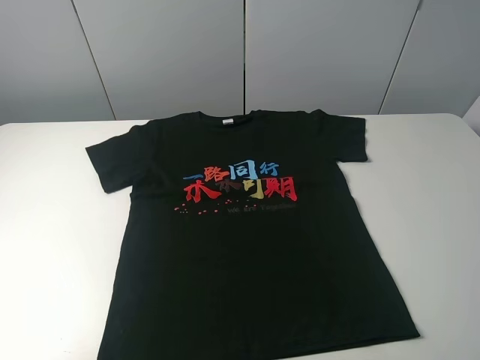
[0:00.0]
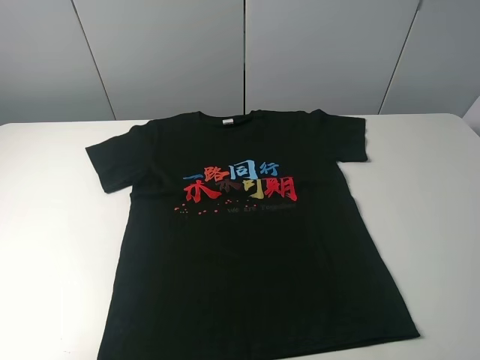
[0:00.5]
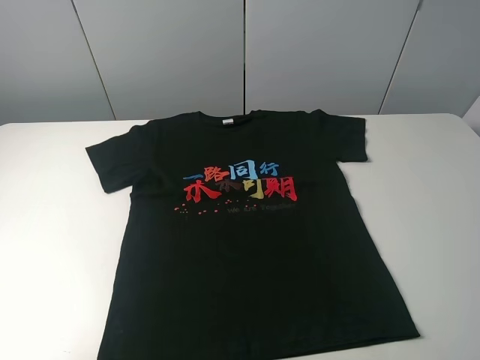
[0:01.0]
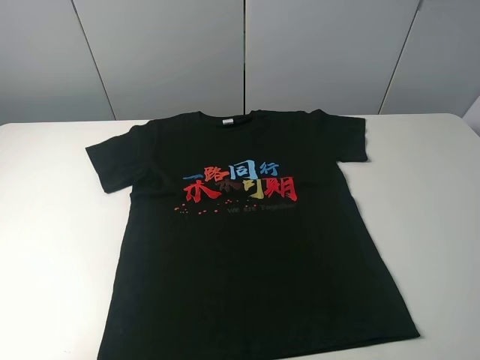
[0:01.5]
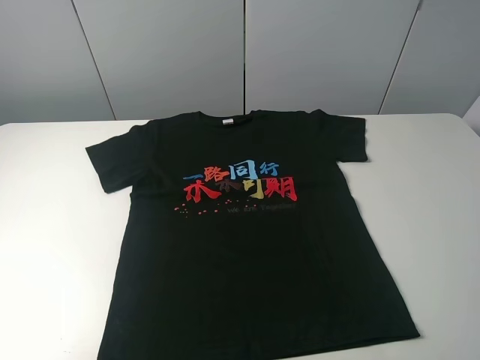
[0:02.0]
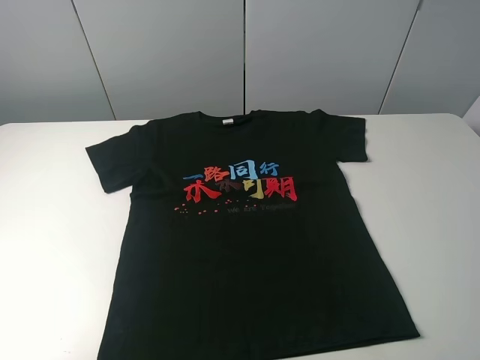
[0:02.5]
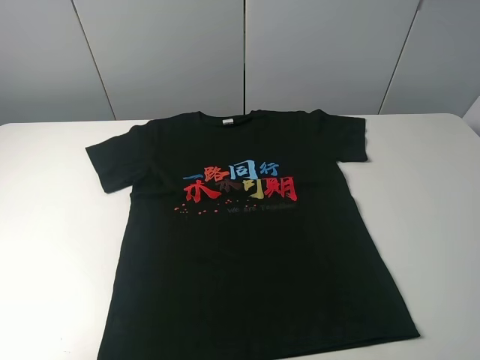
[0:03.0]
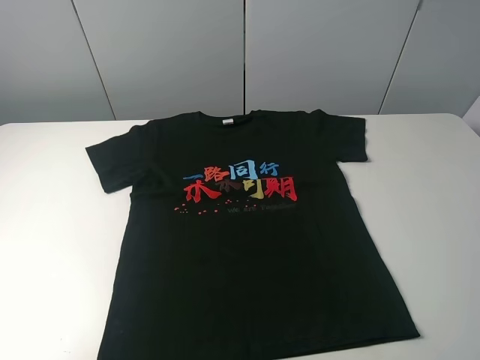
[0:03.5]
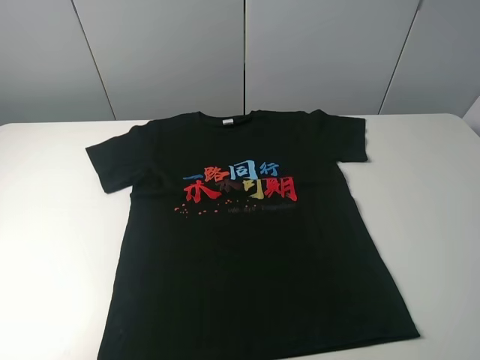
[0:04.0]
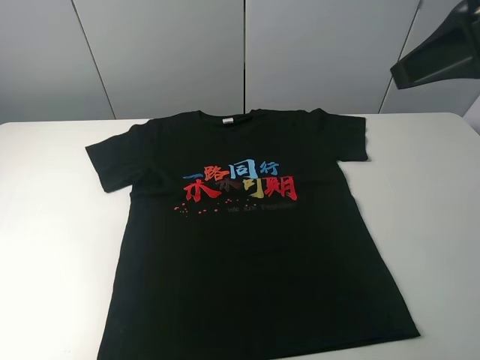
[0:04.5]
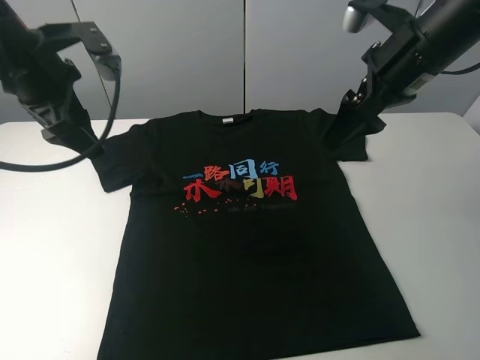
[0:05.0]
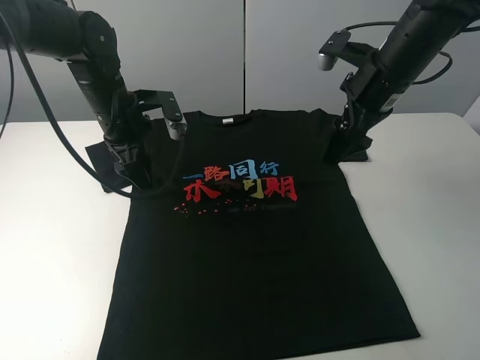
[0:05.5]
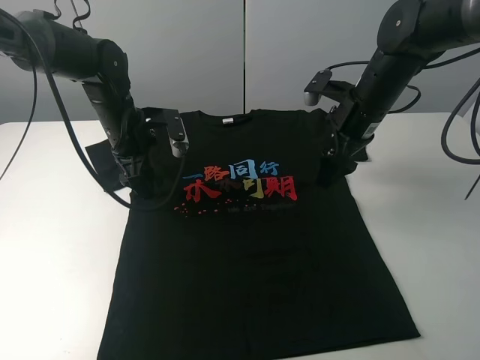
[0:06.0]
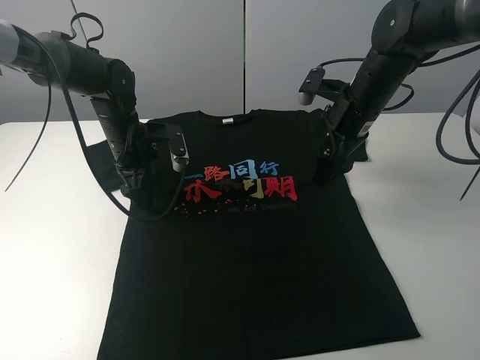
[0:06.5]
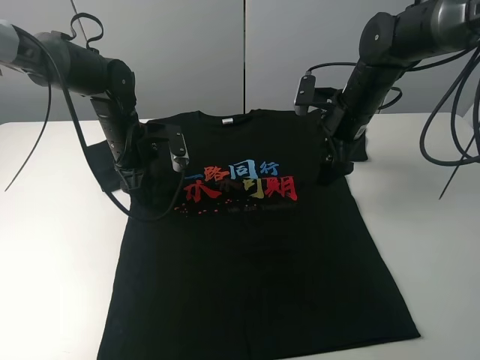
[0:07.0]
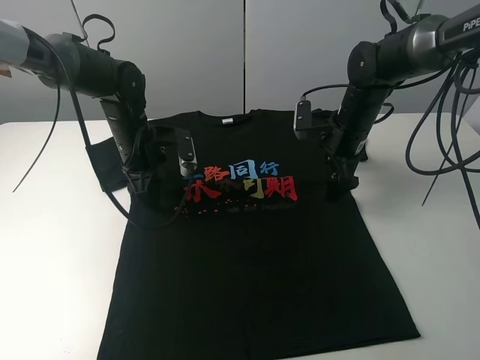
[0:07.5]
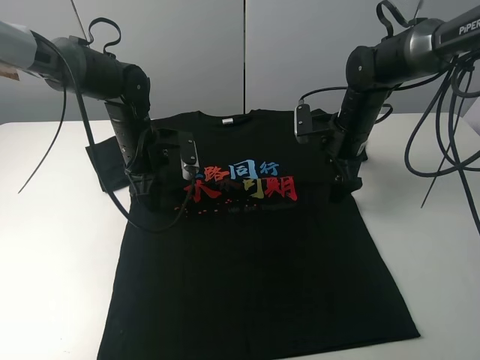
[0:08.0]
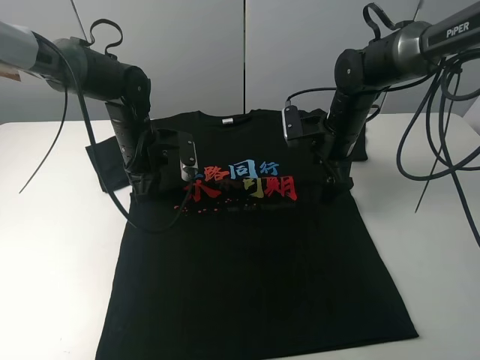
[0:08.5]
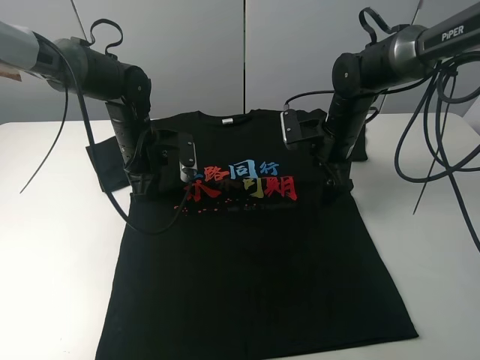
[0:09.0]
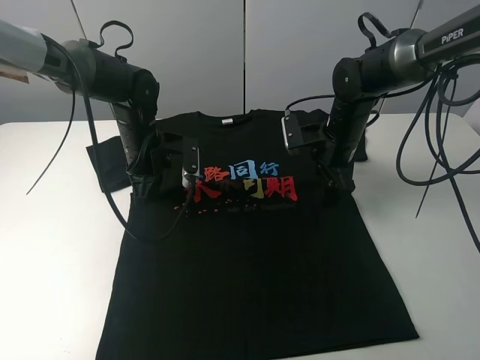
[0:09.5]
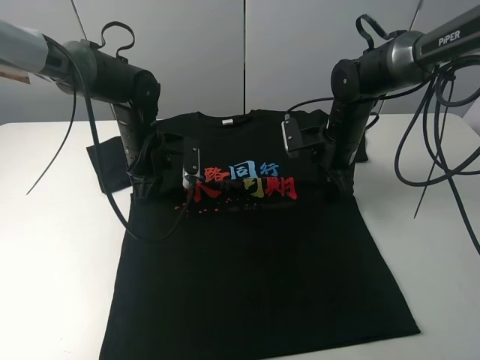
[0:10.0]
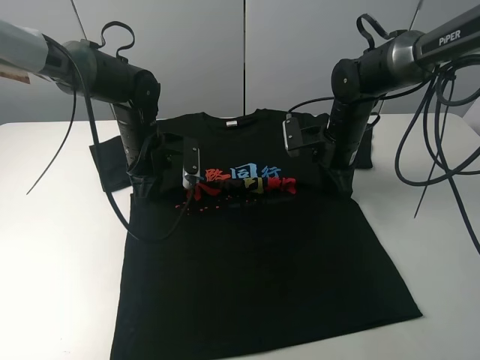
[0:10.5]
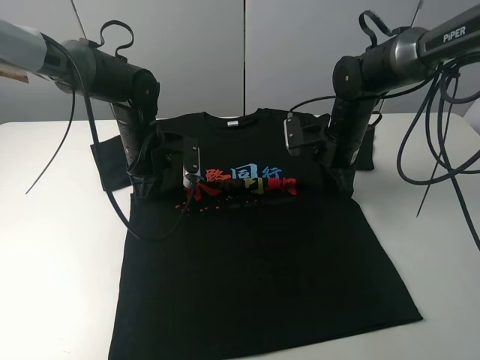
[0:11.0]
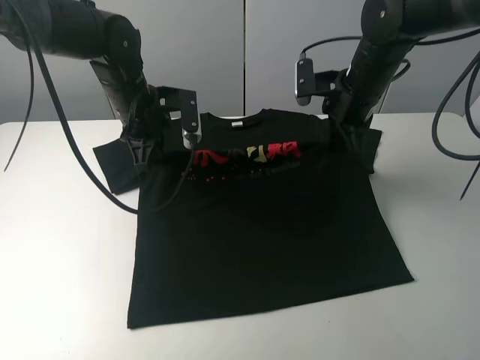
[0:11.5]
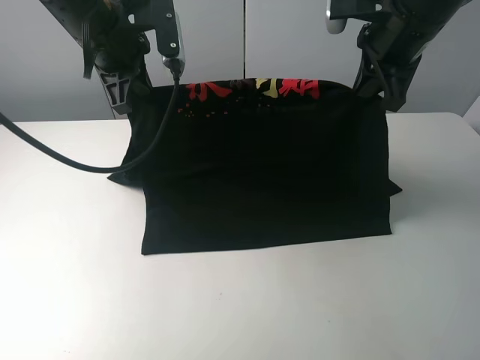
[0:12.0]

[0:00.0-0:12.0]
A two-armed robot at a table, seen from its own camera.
Task of the whole recording: fold the clothes on the table.
Step, 0:00.0 to 0:09.5: Lift the black T-shirt with the left gripper.
0:00.0 to 0:02.0: Both grippers stay put.
0:04.0 to 0:06.0: The right gripper moves forward and downward, some 35 cm. The left gripper goes roughly 40 cm forward, downward and to the right.
0:06.0 to 0:08.0: The right gripper is displaced downward by some 5 cm.
0:08.0 to 0:10.0: The left gripper closes its fingers; the right gripper closes its fingers.
0:10.0 to 0:12.0: Both grippers move upward, approximately 20 cm. The right gripper closes up.

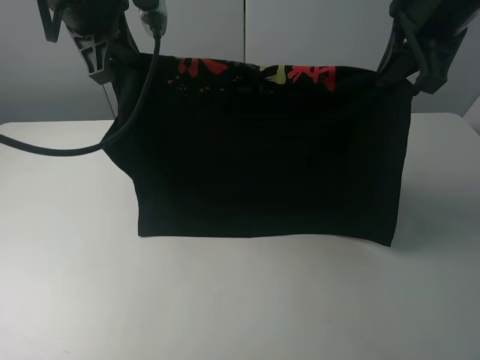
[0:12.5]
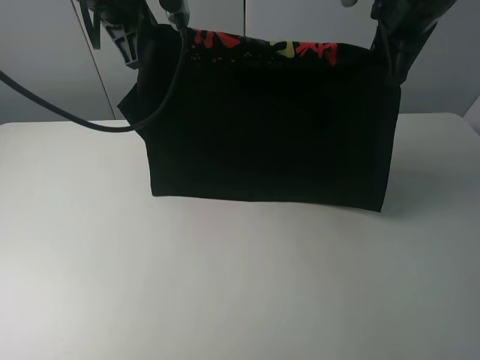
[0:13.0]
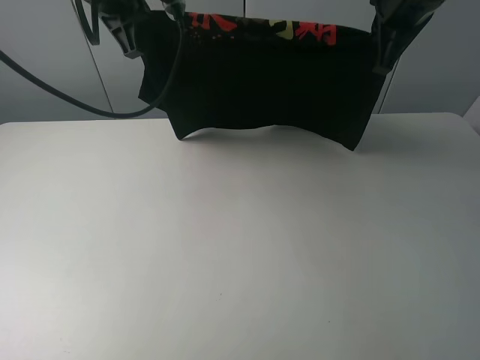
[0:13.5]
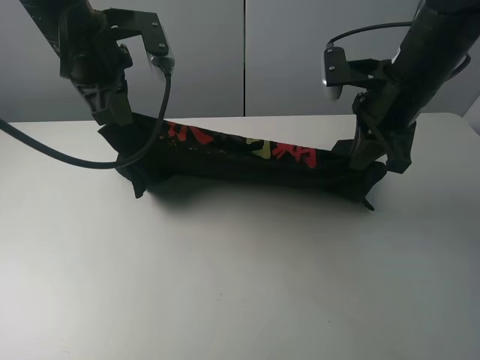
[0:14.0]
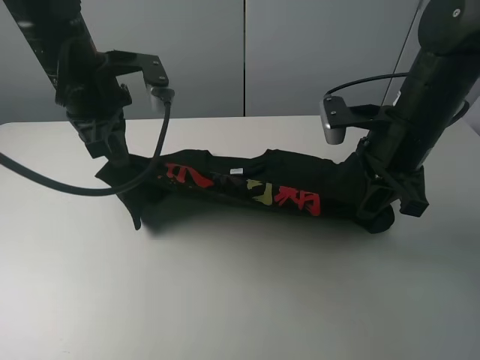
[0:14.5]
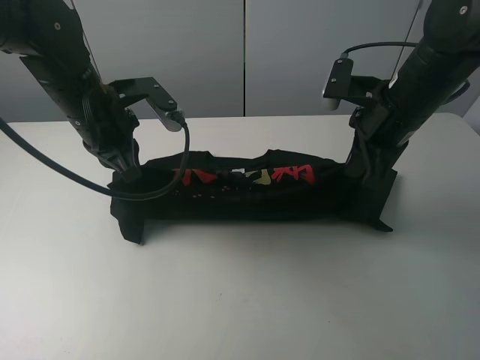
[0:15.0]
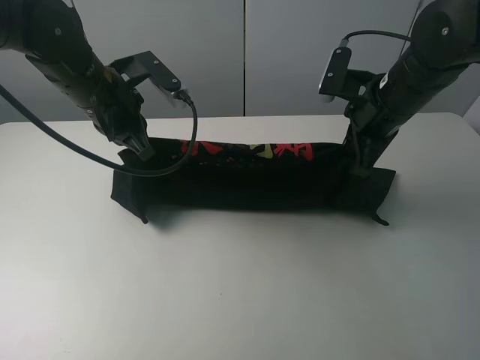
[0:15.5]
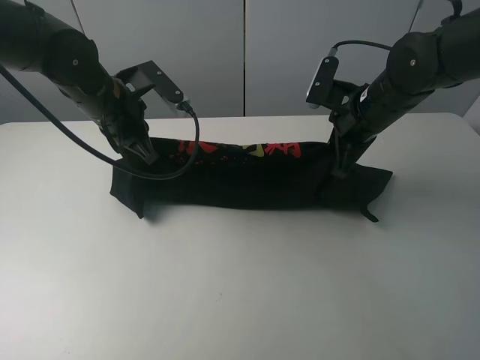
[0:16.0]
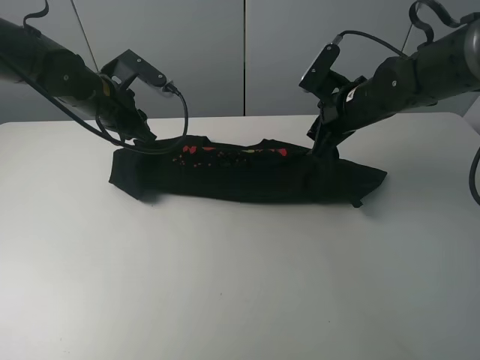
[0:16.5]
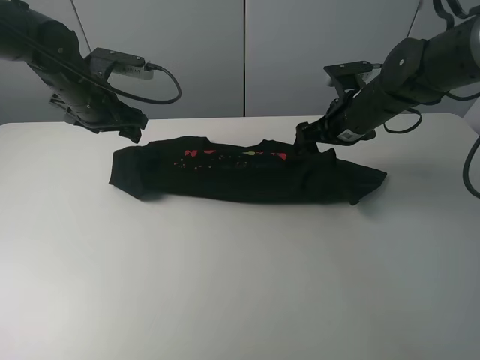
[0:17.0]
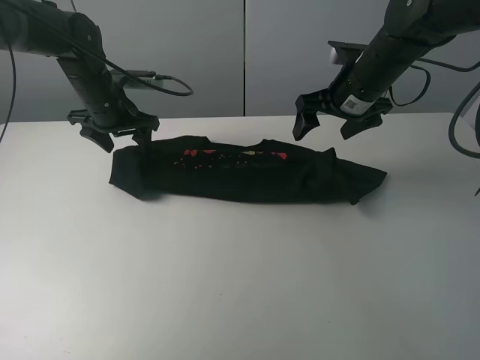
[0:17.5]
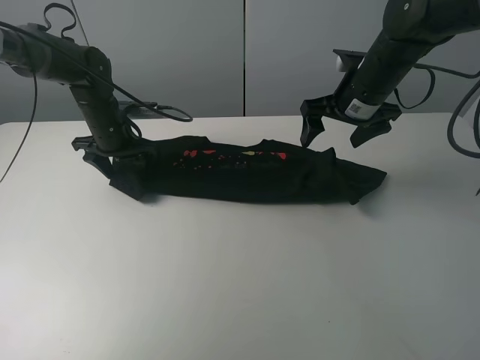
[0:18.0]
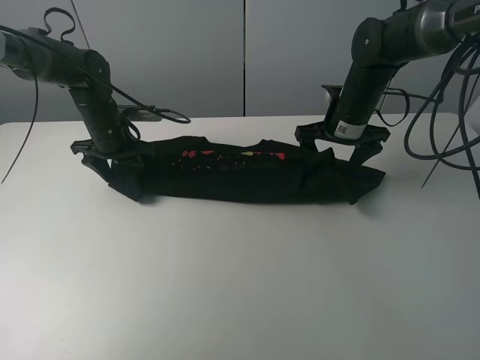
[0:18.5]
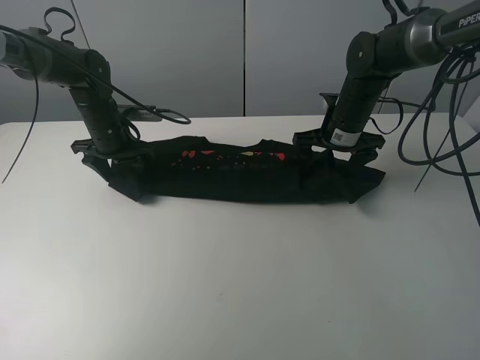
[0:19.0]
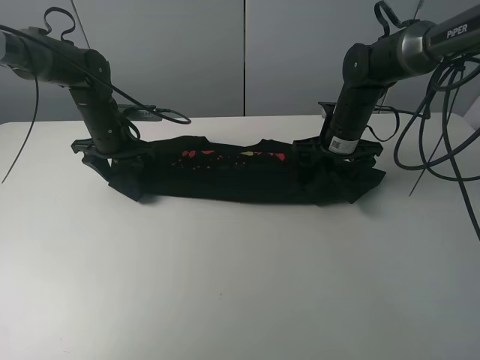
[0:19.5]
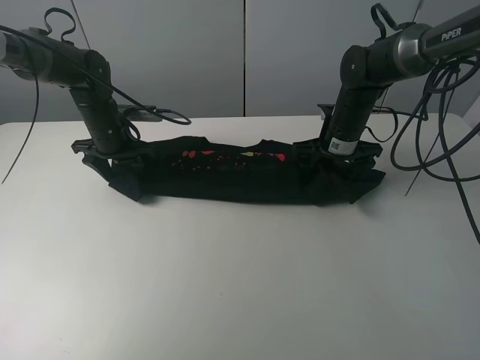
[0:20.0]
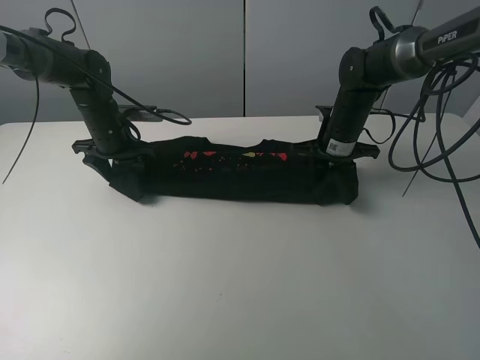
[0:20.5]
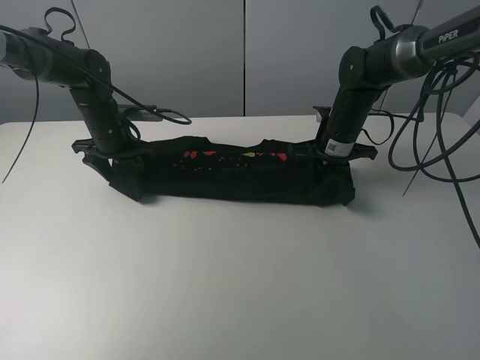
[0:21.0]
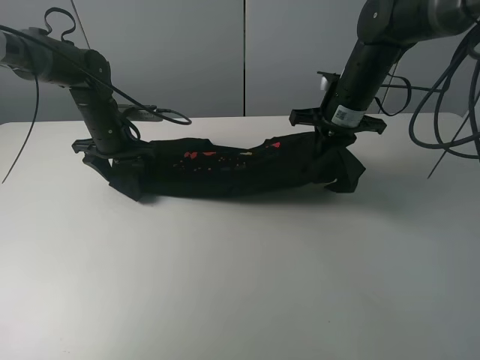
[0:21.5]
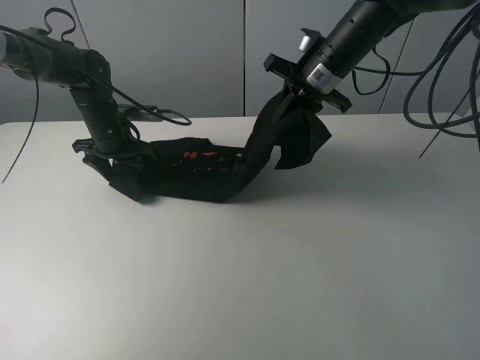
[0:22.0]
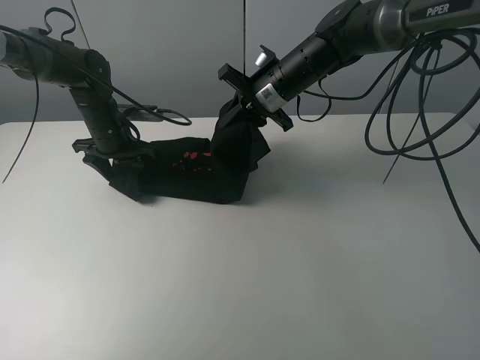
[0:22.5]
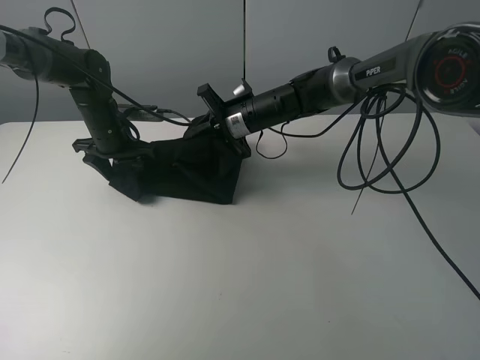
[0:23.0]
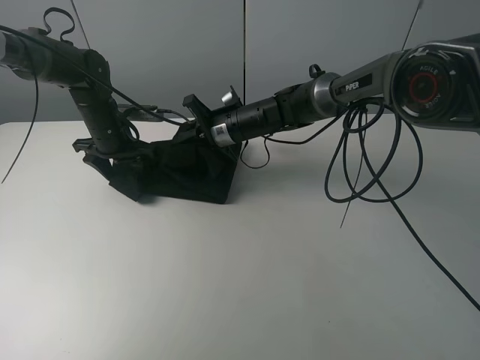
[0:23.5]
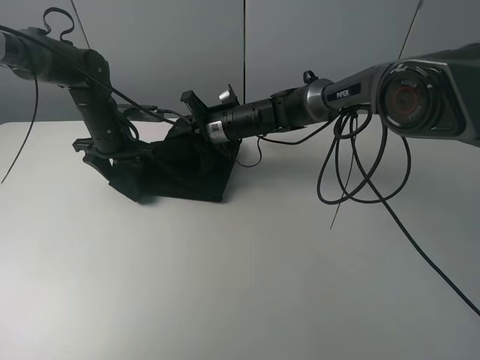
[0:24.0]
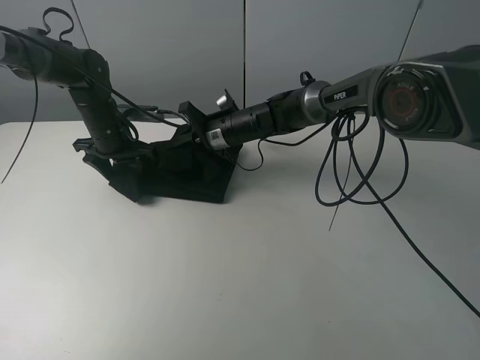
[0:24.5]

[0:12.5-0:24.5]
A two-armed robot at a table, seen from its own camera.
Task of the whole recording: fold the clothes on the table.
Step, 0:12.5 to 0:16.5: Fold the black T-shirt downward with the left gripper.
Step, 0:17.0 to 0:20.5: Grasp the black T-shirt with the right gripper.
0:12.5 to 0:14.5: The two grippers go some 10 cm downward.
0:14.5 to 0:16.5: Both grippers travel together forward and downward, roughly 10 cm. The left gripper opens. Meanwhile the right gripper opens up.
0:16.5 to 0:18.5: The right gripper opens. Meanwhile the left gripper is displaced downward by some 5 cm.
0:18.5 to 0:20.5: The right gripper closes up.
0:20.5 to 0:22.5: The right gripper travels to the left and upward by approximately 15 cm.
0:22.5 to 0:24.5: The right gripper goes roughly 10 cm downward and to the left.

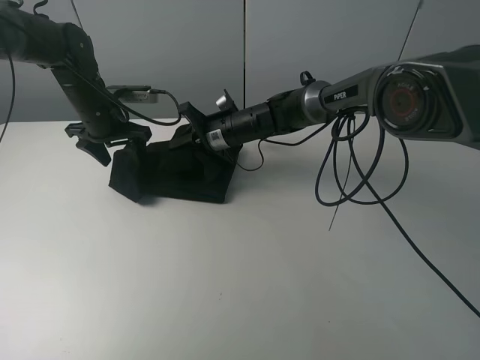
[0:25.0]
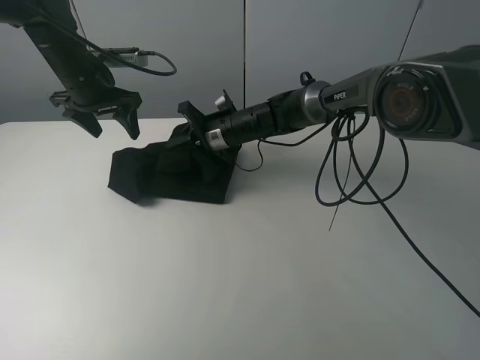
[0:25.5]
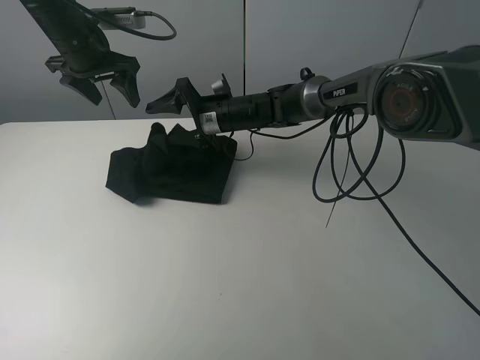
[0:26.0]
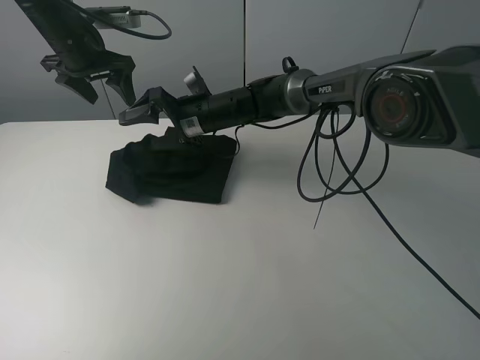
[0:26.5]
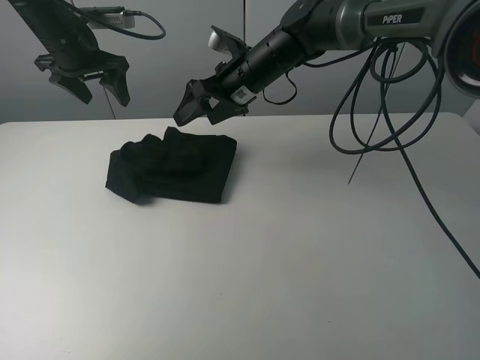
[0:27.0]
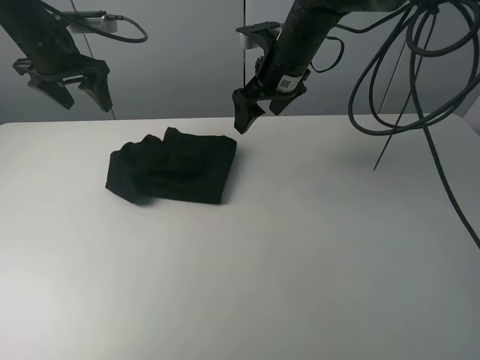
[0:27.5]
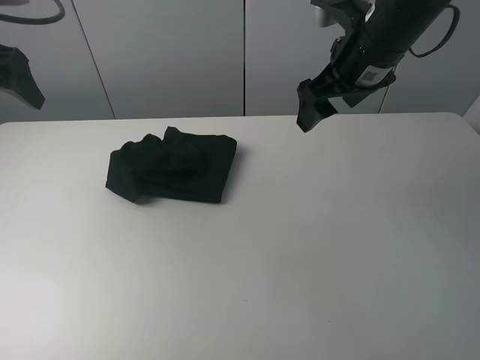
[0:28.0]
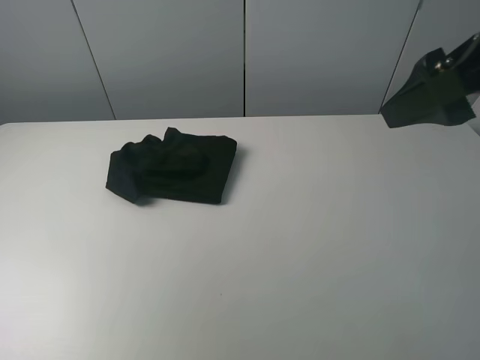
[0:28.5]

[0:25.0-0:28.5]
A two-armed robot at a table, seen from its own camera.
Task of the whole recording: fold the clothes on the table.
0:25.0 to 0:27.0: Both grippers travel together upward, about 10 cm. The right gripper opens its fingers.
0:27.0 to 0:28.5: The left gripper shifts approximately 25 cm backward; the right gripper goes about 35 cm backward, to the right and upward.
